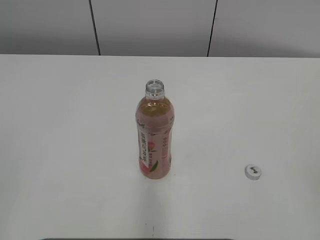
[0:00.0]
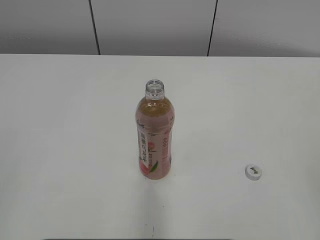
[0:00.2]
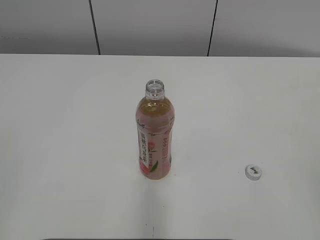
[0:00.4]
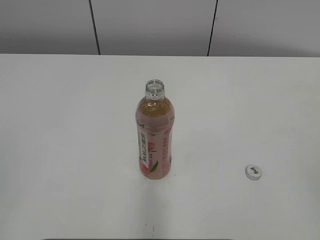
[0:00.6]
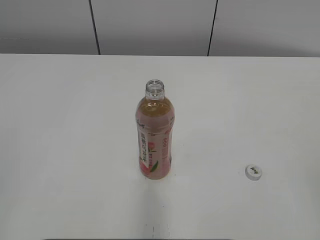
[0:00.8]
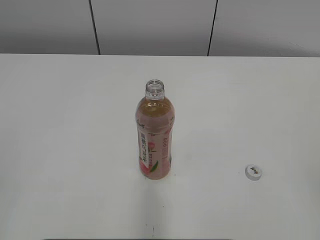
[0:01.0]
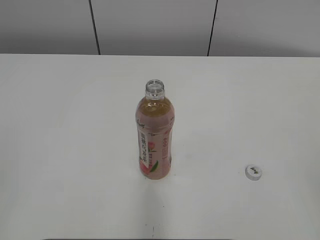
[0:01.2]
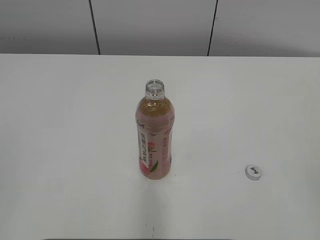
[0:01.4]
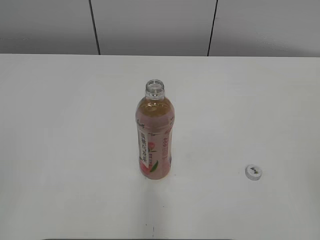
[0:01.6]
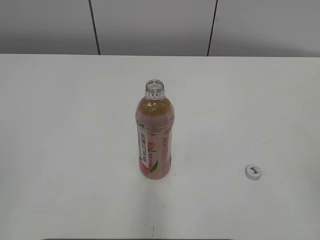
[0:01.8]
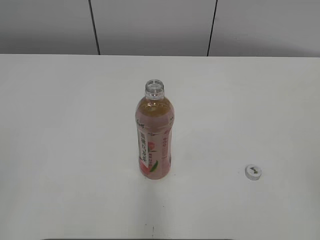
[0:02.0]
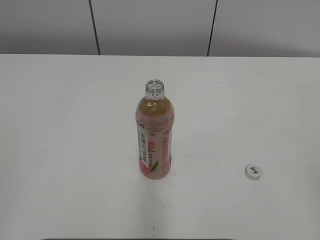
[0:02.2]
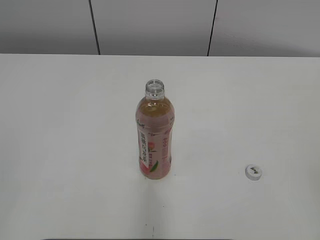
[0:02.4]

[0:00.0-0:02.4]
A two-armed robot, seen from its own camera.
0:00.0 to 0:01.2: Both grippers stay about where they are.
